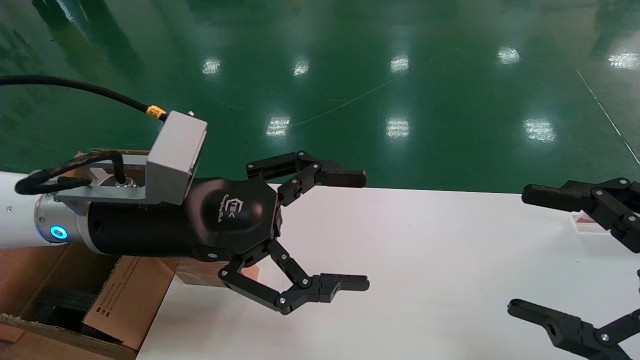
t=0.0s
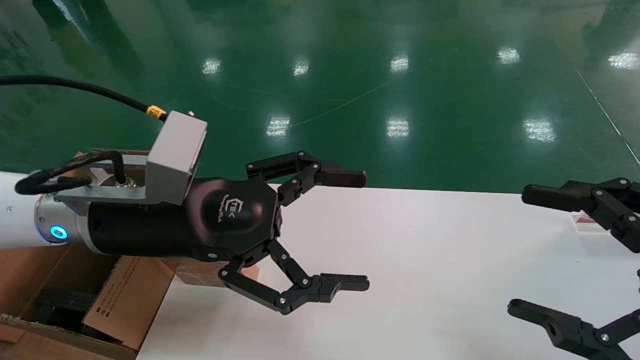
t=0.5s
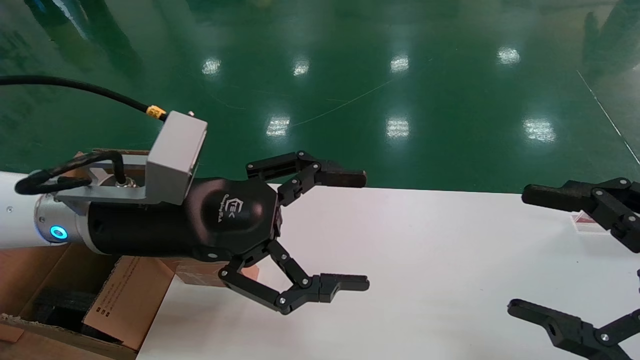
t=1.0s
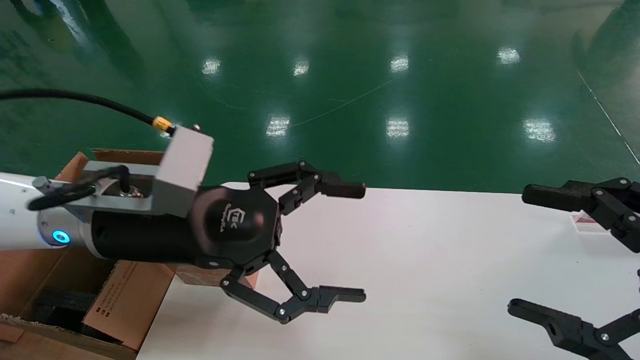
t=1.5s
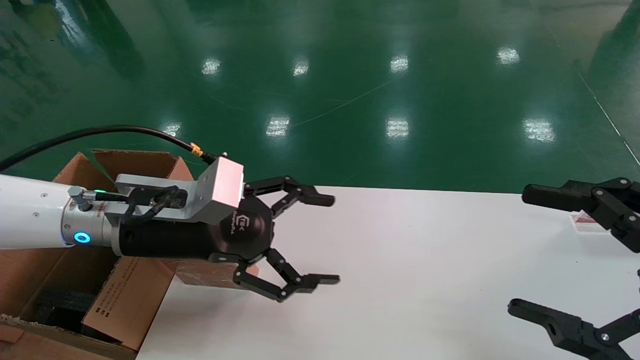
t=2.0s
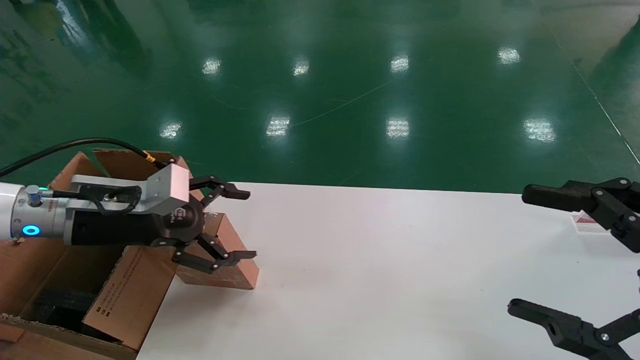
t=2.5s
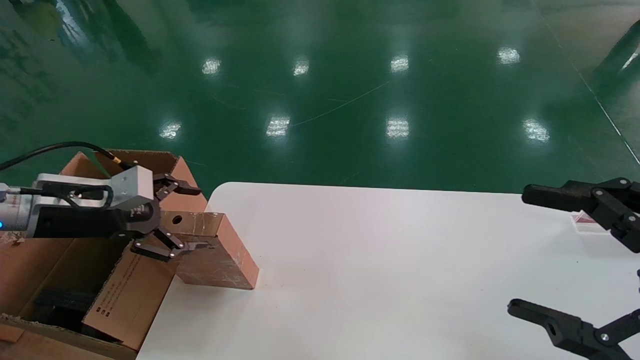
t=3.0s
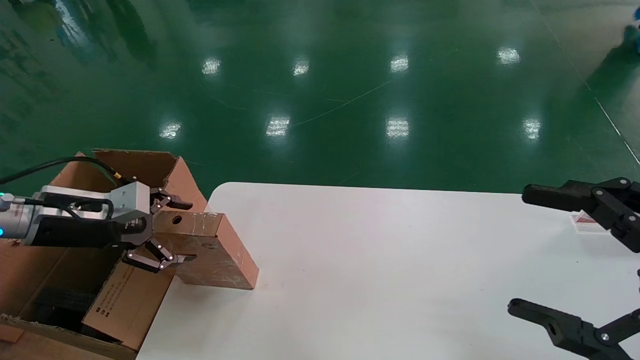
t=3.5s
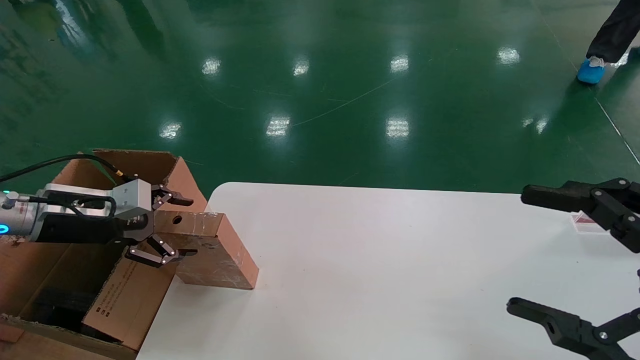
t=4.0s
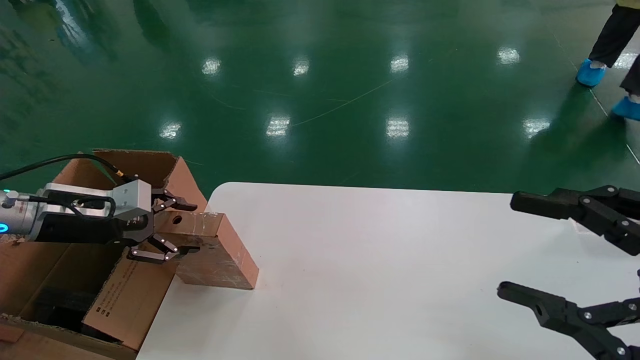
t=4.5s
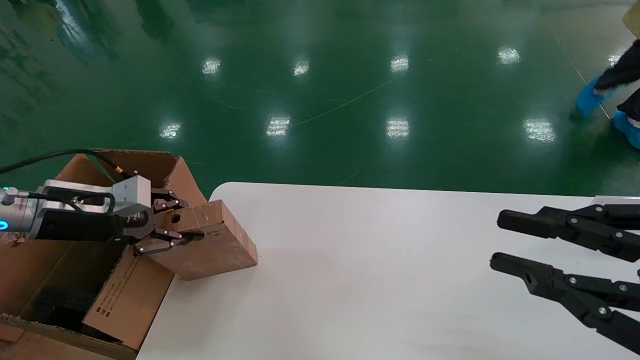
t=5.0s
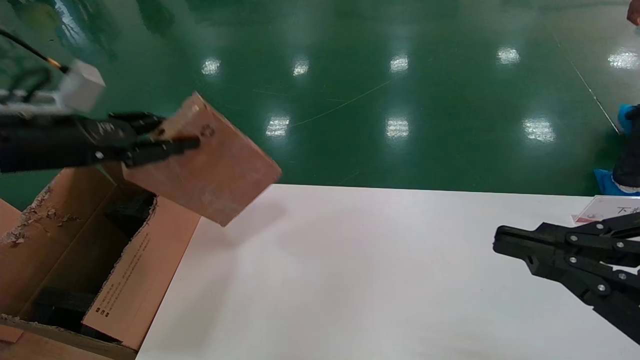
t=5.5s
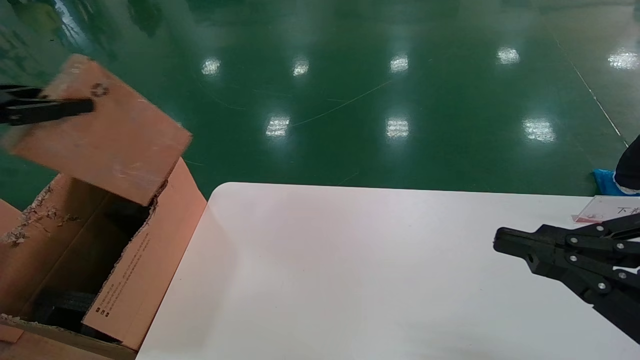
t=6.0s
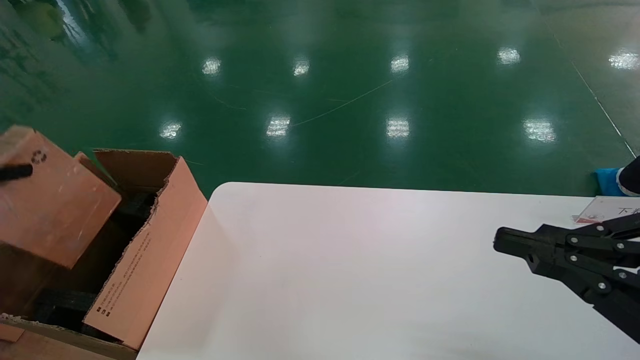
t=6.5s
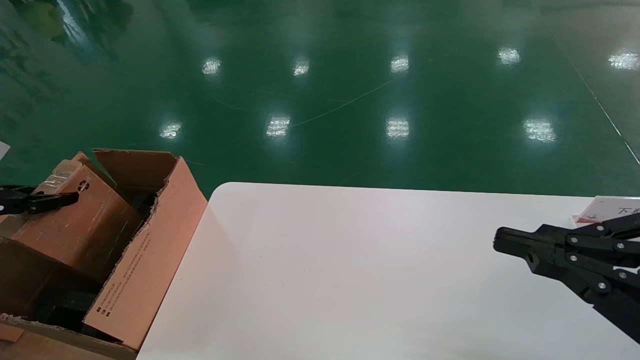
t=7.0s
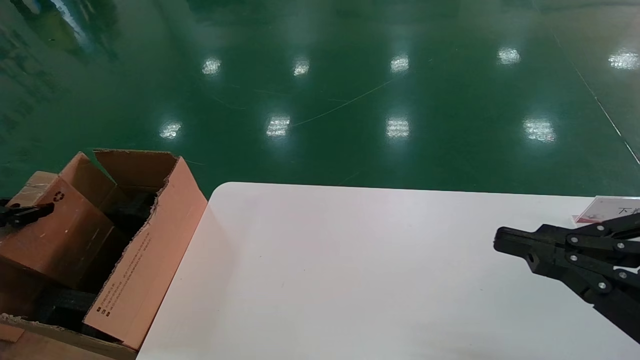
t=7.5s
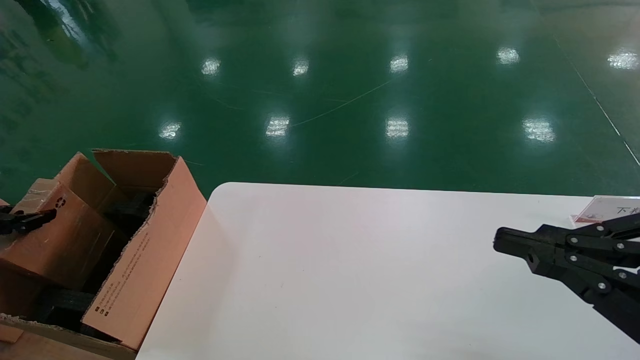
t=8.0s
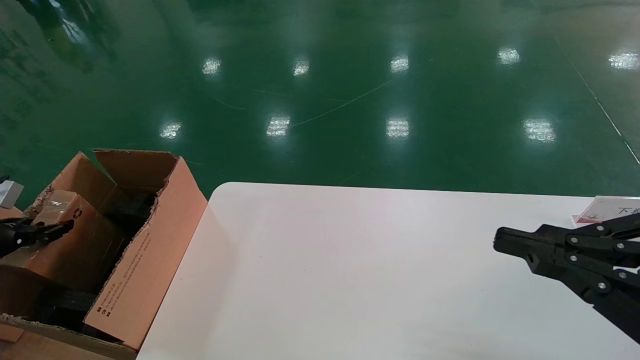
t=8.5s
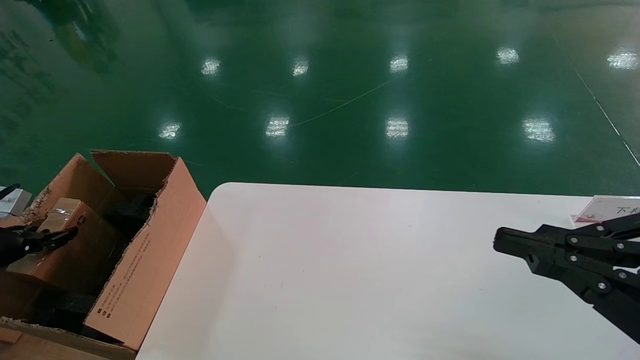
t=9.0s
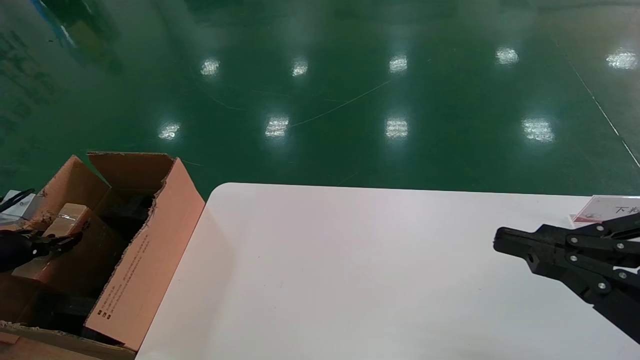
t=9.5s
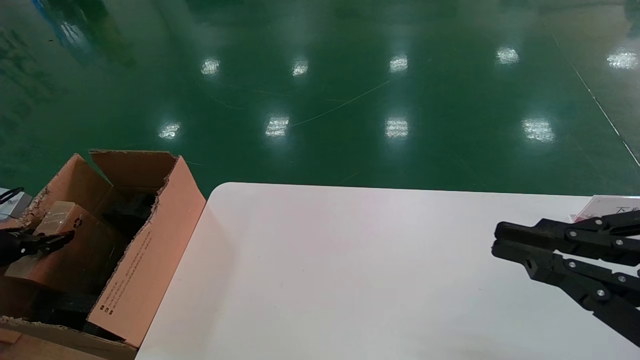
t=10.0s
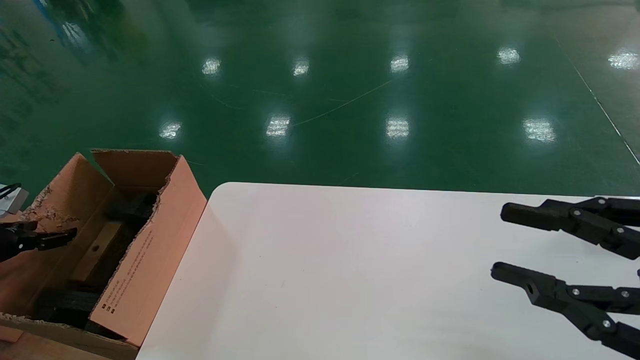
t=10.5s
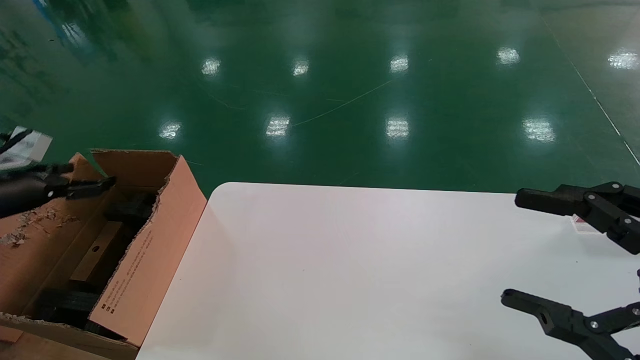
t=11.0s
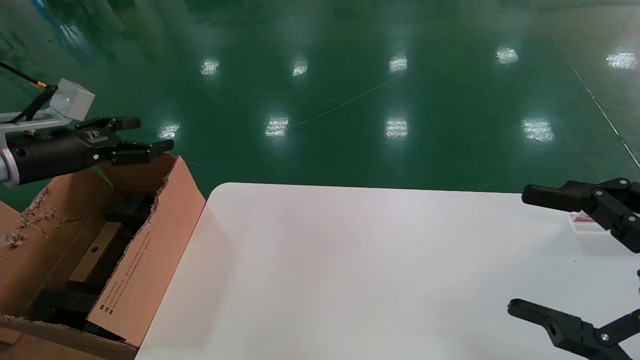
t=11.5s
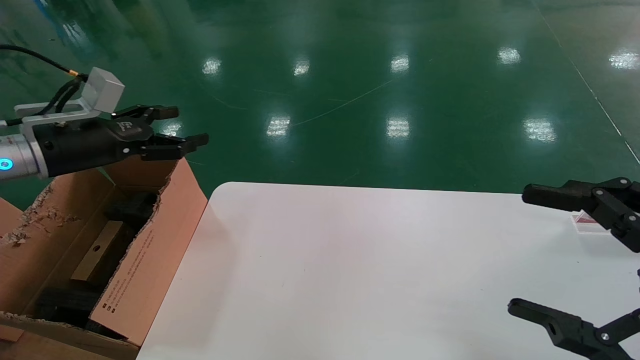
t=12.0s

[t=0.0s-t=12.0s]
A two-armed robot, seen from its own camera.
Task of the whole recording: put the box on the table into the big box.
Step, t=2.0s to t=5.0s: Pick up the mouse and the power cord paper box.
Step, t=5.5s to t=10.5s: Place the mouse and the power cord paper box into the container.
t=0.0s to t=2.0s: The left gripper shifts by some 5 cm.
t=2.0s to t=4.0s: The left gripper travels to the left by about 20 cm.
t=4.0s to t=6.0s: The left gripper is displaced upward, backward and to the left by about 20 cm, and closes. The right gripper closes its fingers.
t=6.0s to t=8.0s: The left gripper moves downward and to the left, approximately 20 cm.
t=8.0s to t=10.0s: The left gripper goes approximately 5 cm downward.
t=10.0s to t=12.0s: The right gripper opens its fingers. Meanwhile the left gripper travels to the right and upward by roughly 25 cm, and opens.

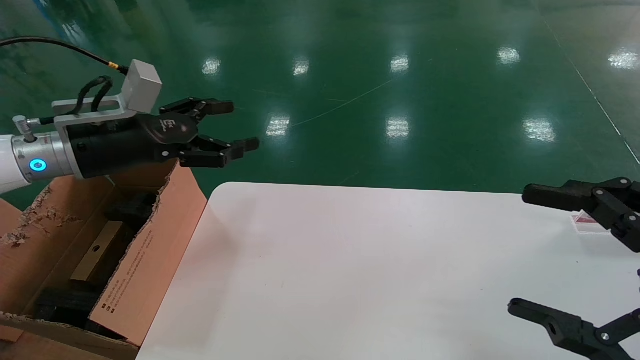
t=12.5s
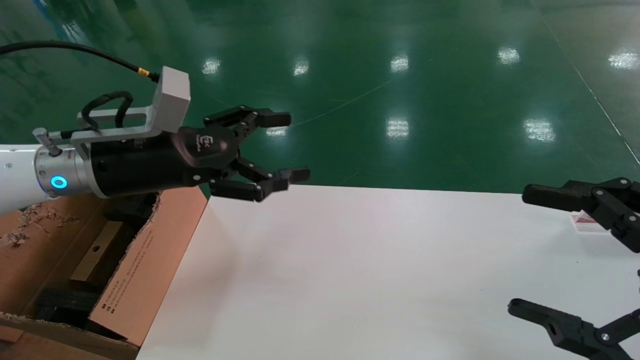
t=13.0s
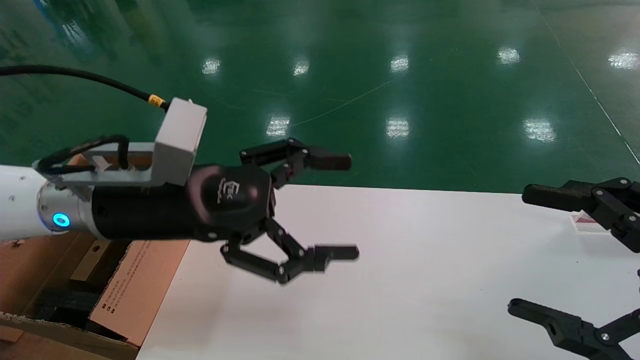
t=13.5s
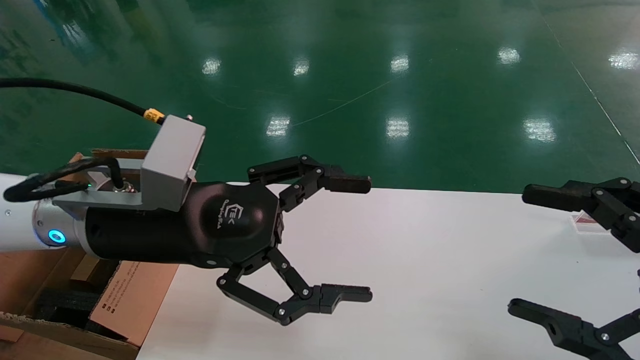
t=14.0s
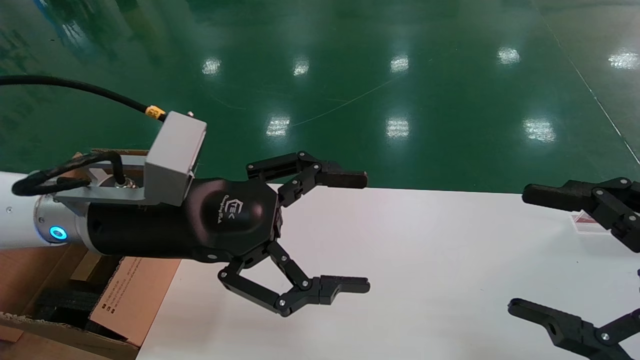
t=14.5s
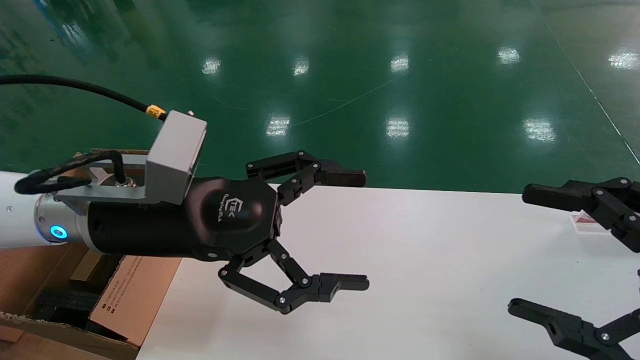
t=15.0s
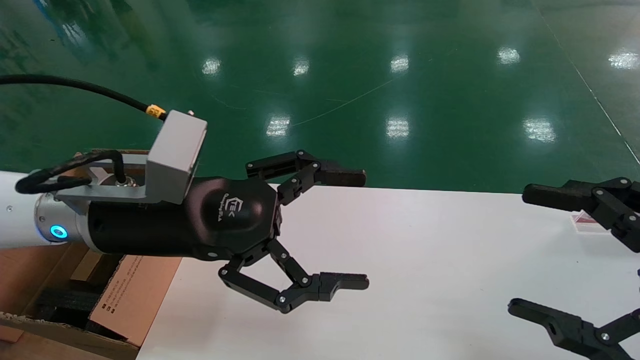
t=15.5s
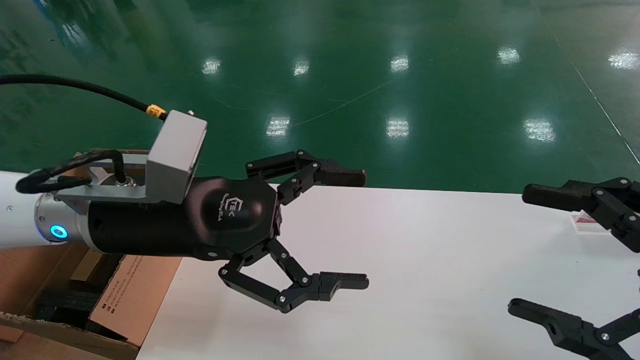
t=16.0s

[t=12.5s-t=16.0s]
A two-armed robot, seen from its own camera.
Task of the whole recording: put the box on the table into the big box.
t=12.5s to t=14.5s: The left gripper heads to the right and backward, covering roughly 20 cm.
t=14.5s to t=16.0s: Both grippers stay about where they are.
